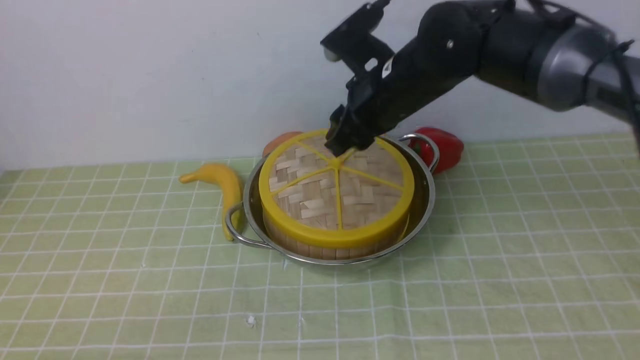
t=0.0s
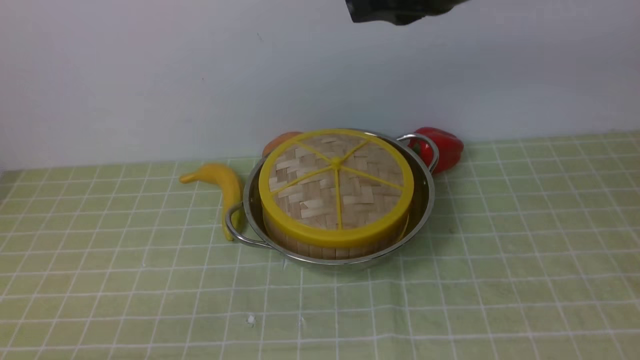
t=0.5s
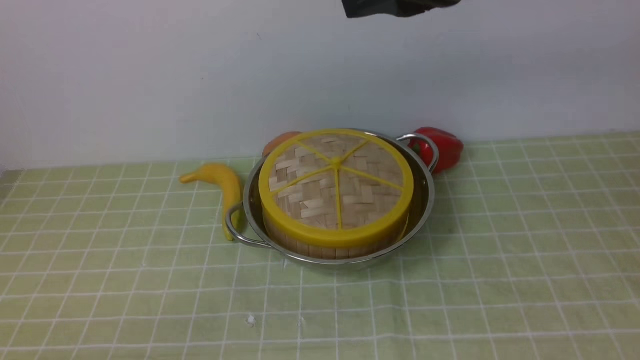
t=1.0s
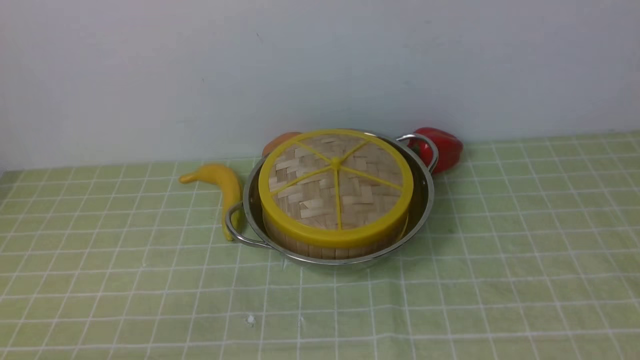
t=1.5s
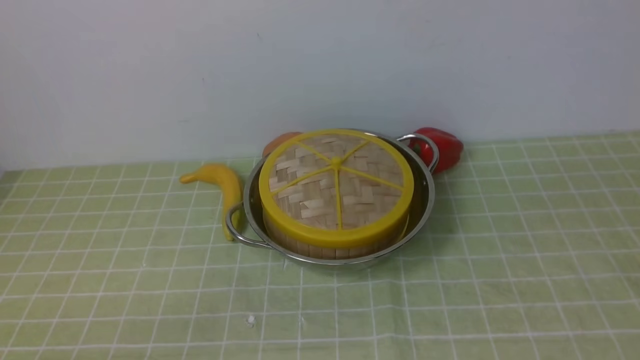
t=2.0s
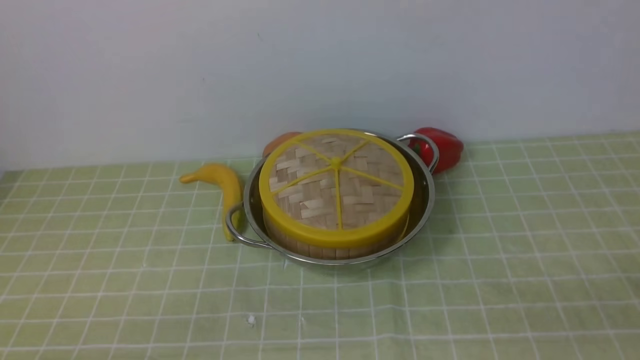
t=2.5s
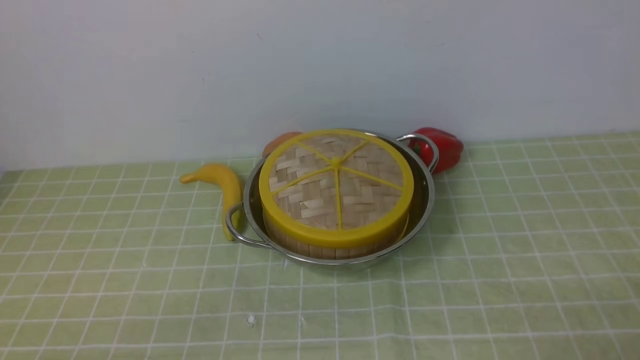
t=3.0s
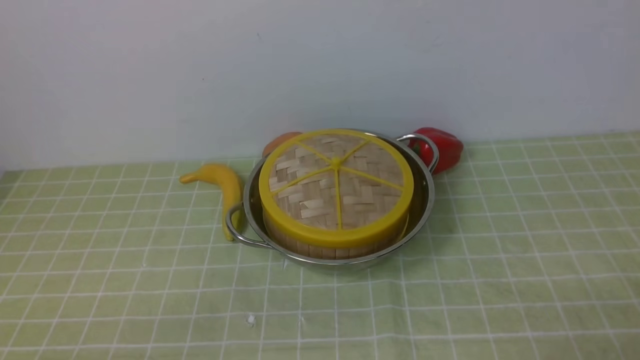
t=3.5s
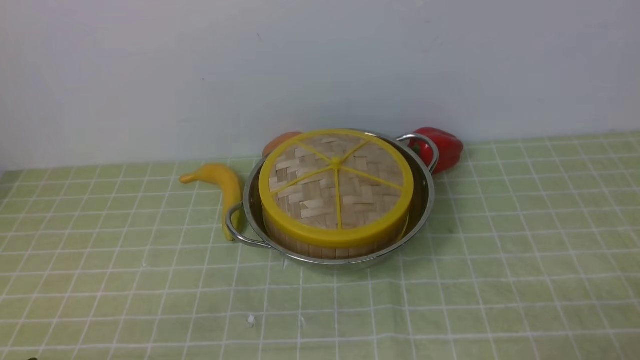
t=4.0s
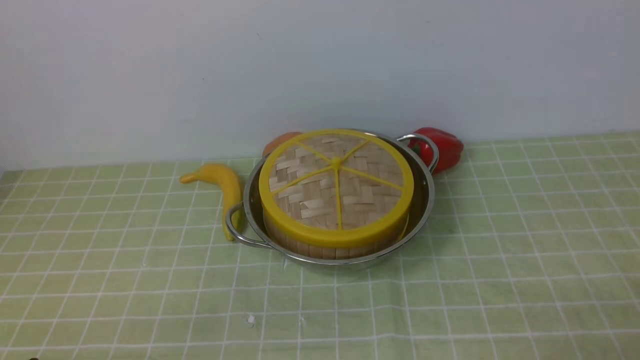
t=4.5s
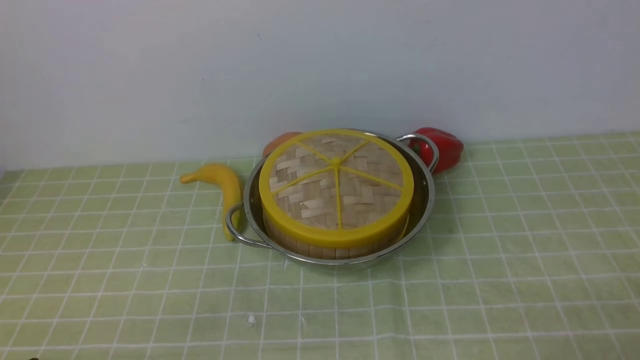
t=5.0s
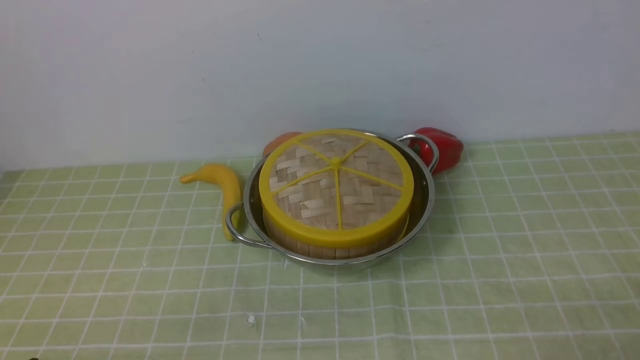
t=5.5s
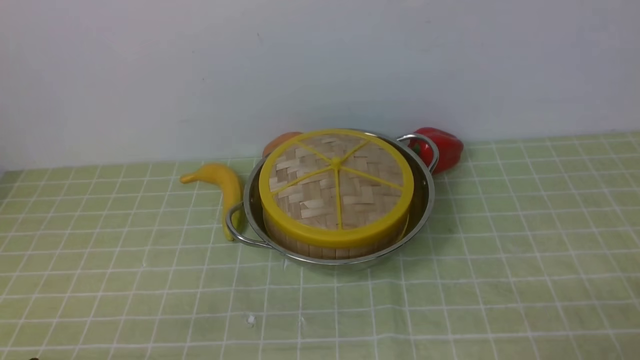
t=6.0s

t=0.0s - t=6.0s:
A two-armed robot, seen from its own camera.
Task of the whole recording: place the steamer in the pot on the green tablecloth, and put the lid on the steamer.
t=0.0s - t=2.0s: The right gripper moves backward and to the right, roughly 40 cm, and closes, then opens again.
t=4.0s - t=6.0s: Both grippers stay put.
